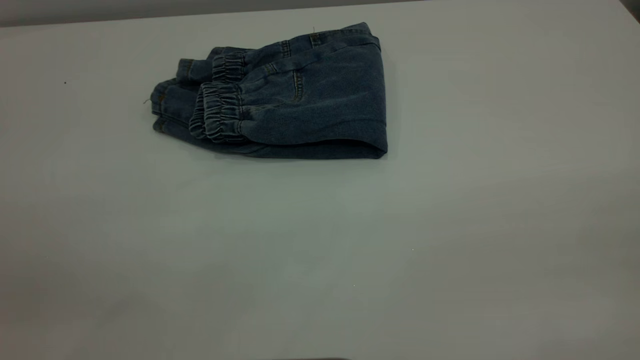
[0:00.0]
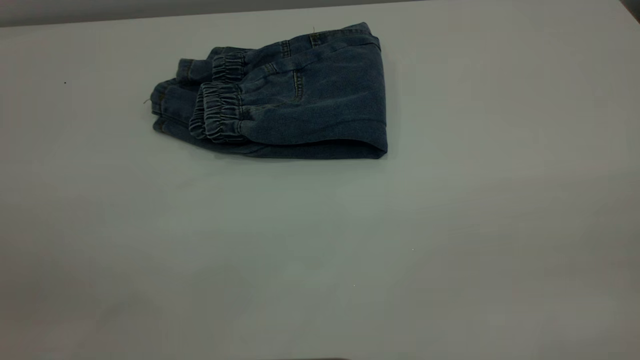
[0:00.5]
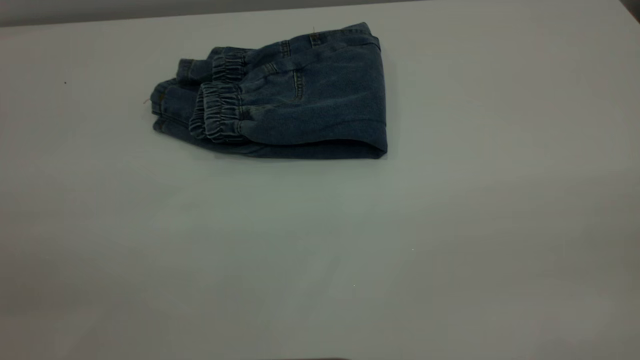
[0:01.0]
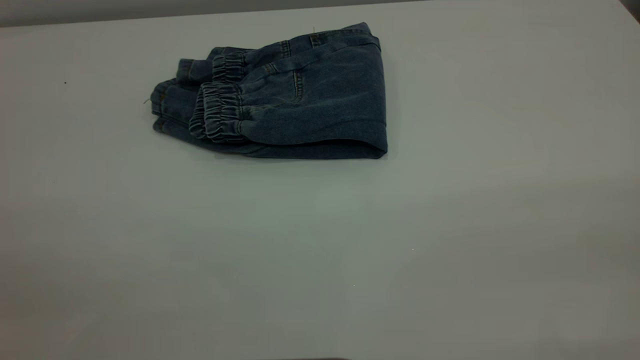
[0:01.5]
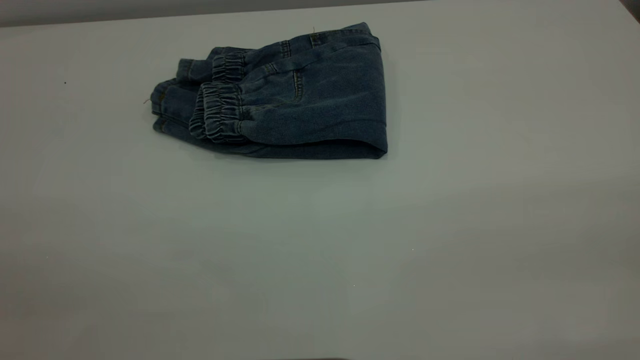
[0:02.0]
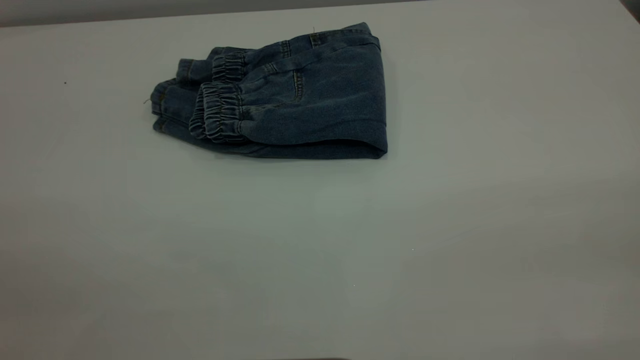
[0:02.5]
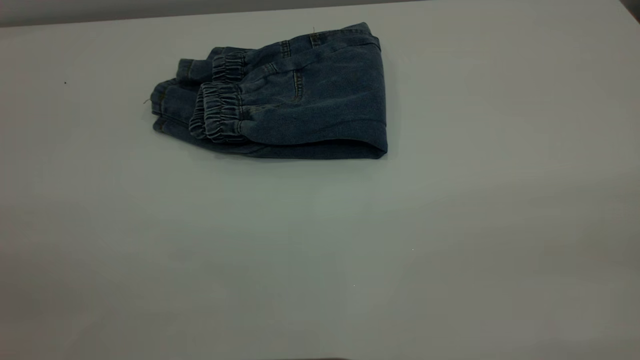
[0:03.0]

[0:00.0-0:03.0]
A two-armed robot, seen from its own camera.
0:01.5 to 0:03.0: Both grippers stay put.
